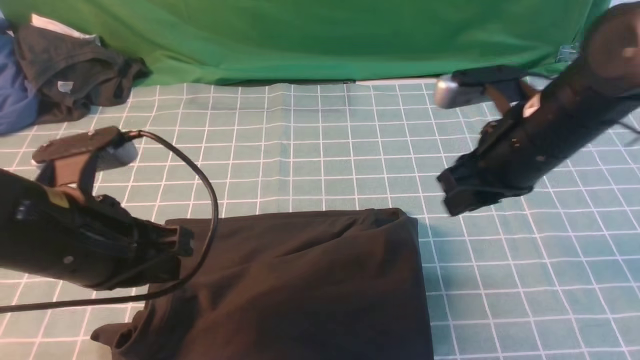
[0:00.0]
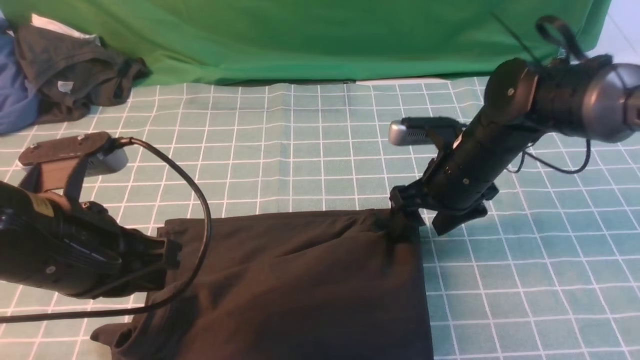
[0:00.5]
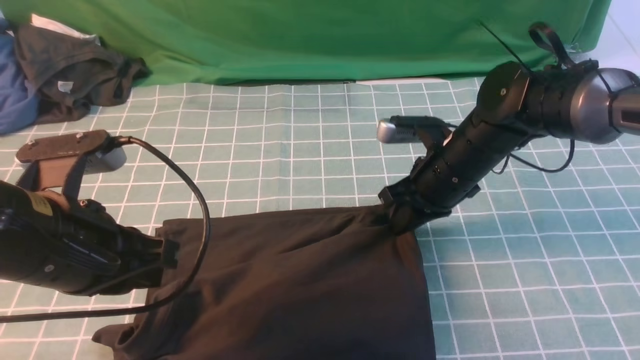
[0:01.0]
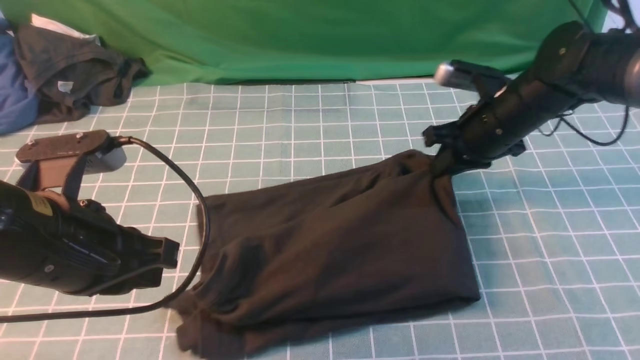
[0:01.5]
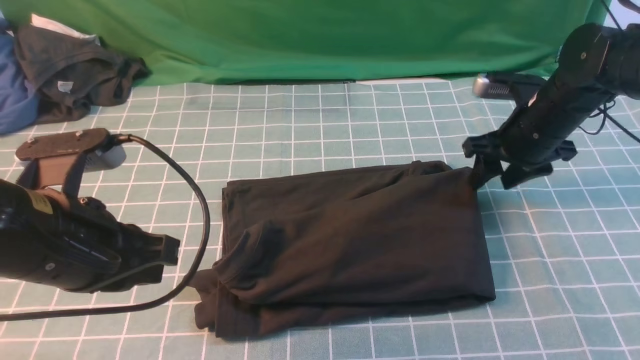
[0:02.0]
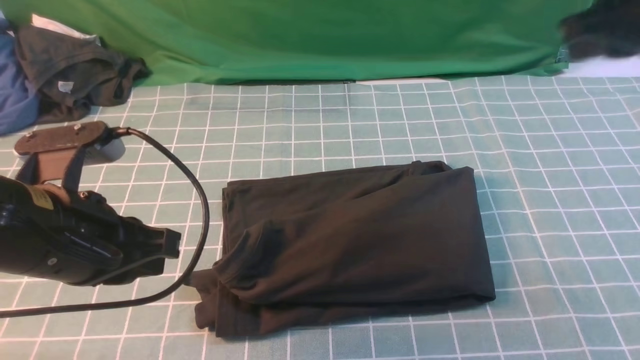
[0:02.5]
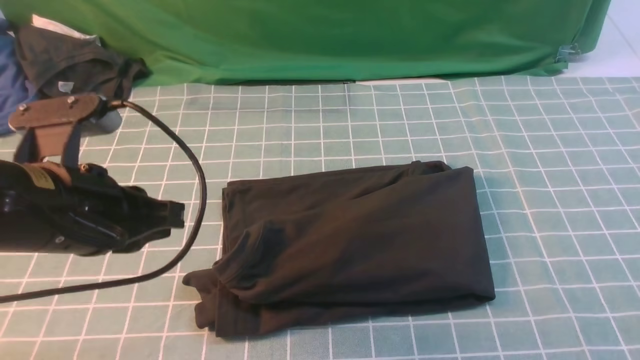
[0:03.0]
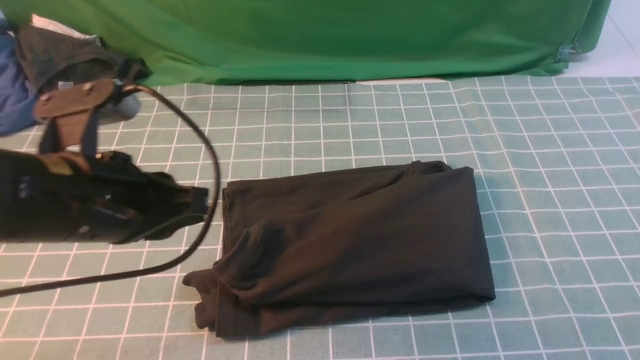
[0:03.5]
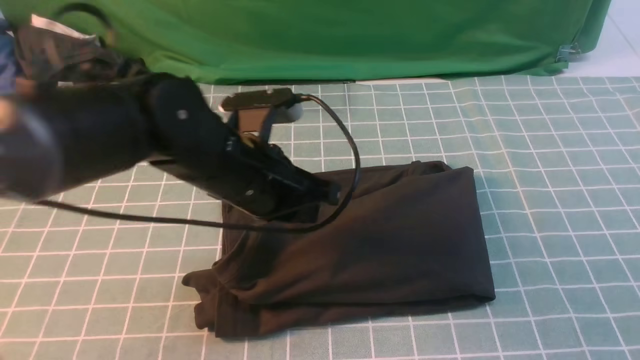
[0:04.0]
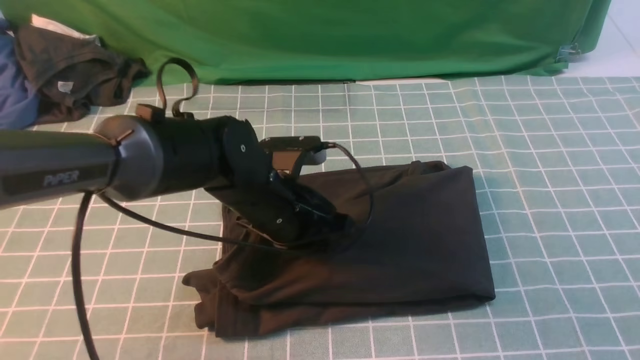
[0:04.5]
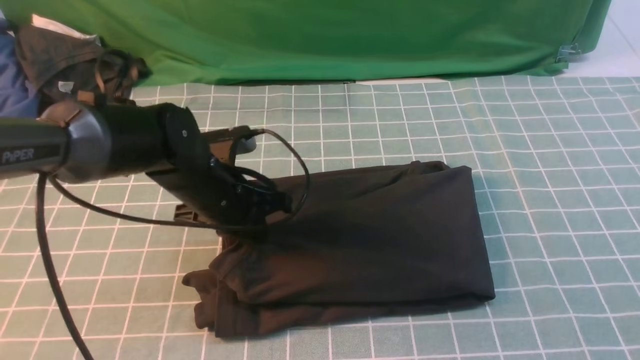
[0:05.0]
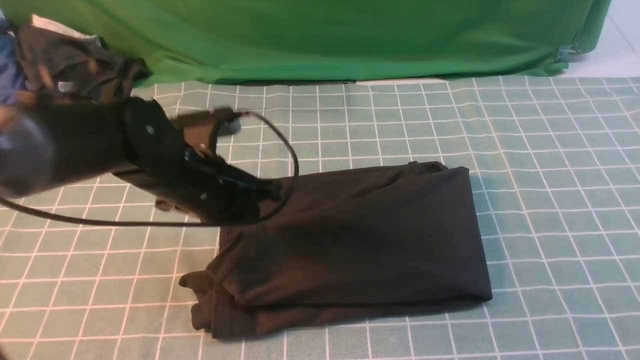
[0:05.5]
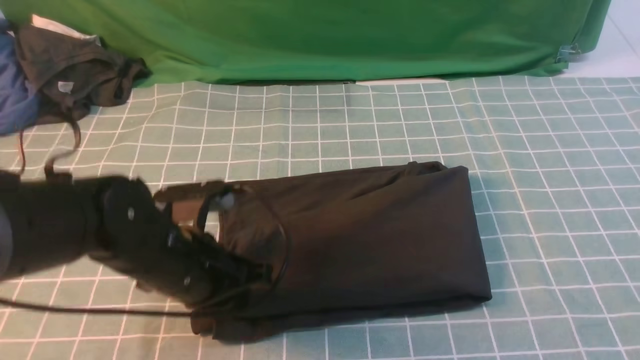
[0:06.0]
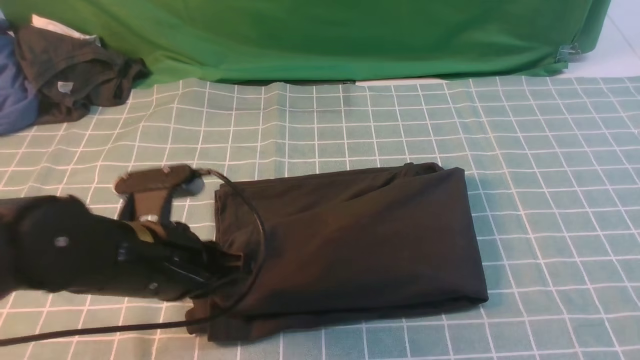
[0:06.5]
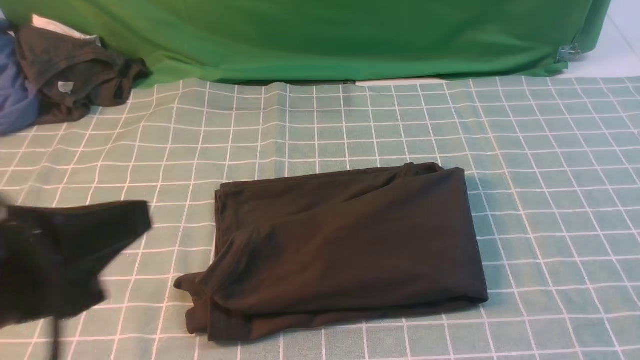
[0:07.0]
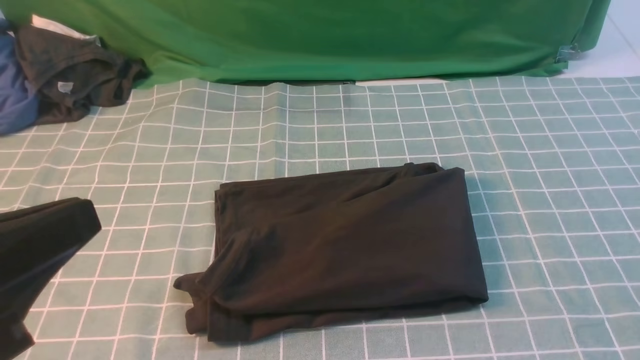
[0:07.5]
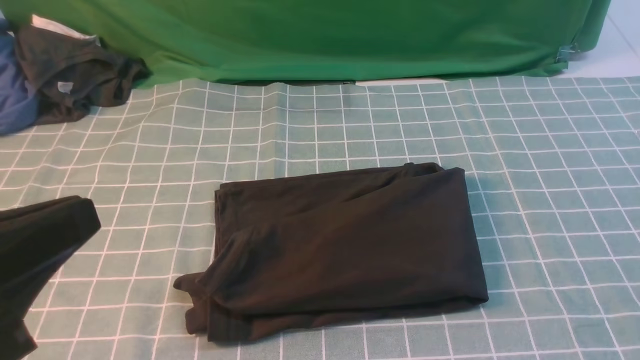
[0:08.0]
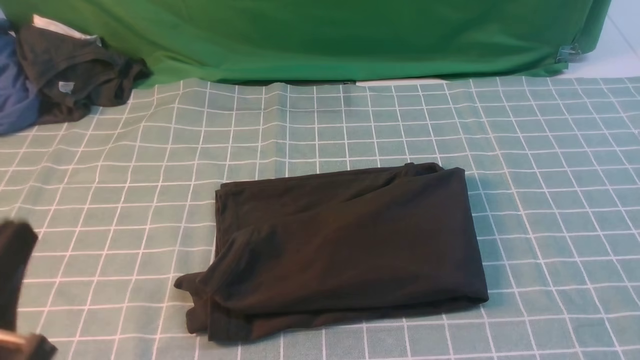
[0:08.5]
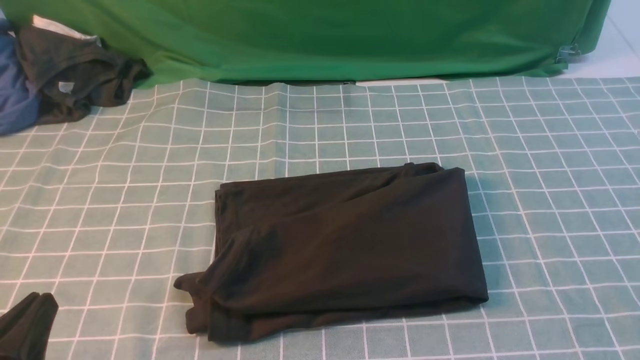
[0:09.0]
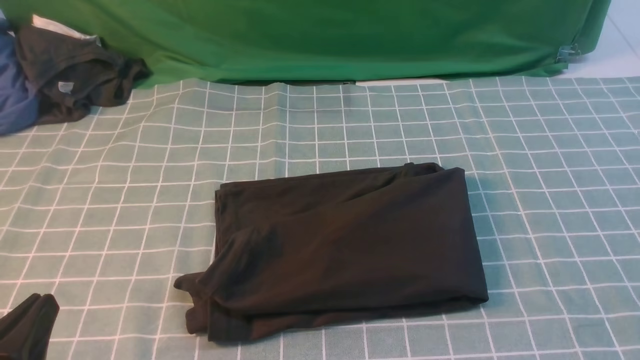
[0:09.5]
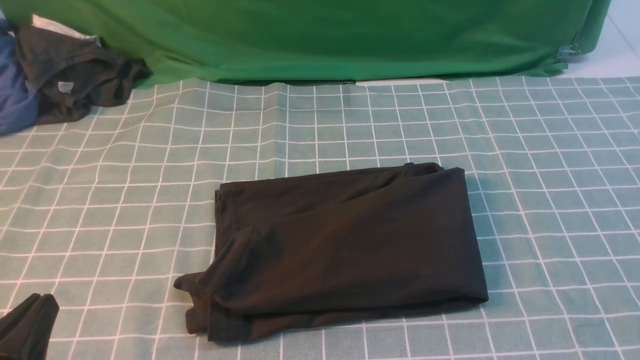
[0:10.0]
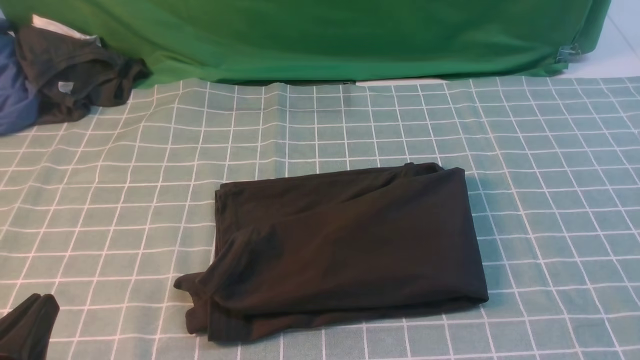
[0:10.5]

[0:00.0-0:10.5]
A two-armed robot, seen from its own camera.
0:00.0 to 0:02.0: The right gripper travels forward, to the right and downward by approximately 15 cm, and closes, then reopens.
0:02.0 to 0:04.0: The right gripper heads backward, covering about 35 cm; the left gripper shifts roughly 15 cm to the right and forward.
0:04.0 to 0:06.5: The left gripper goes approximately 10 cm backward and to the left.
0:06.5 to 0:08.5: The left gripper moves backward and to the left, approximately 15 cm.
0:08.5 to 0:10.5: The left gripper moves downward, some 5 cm.

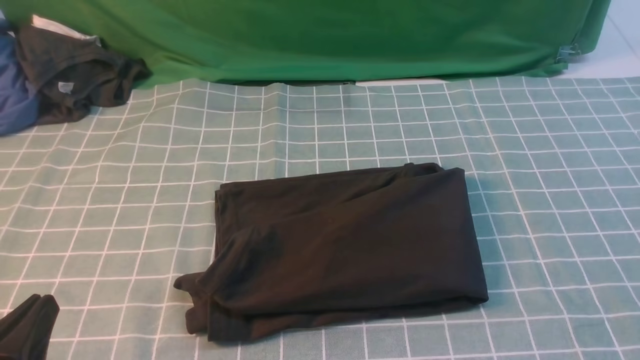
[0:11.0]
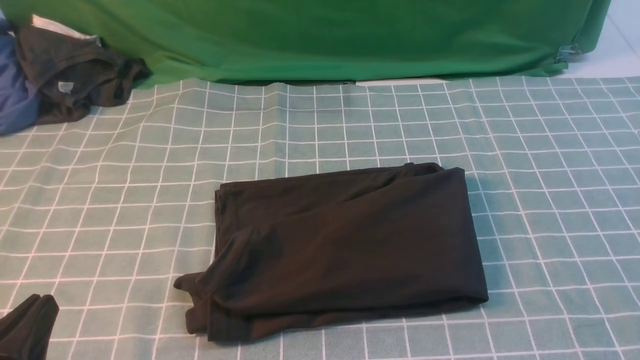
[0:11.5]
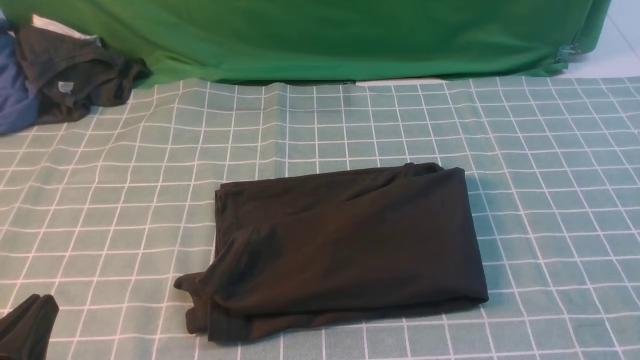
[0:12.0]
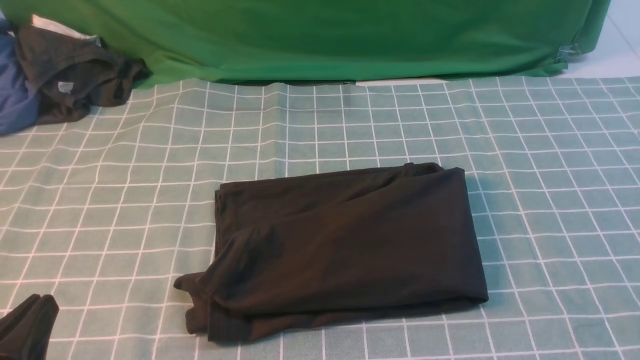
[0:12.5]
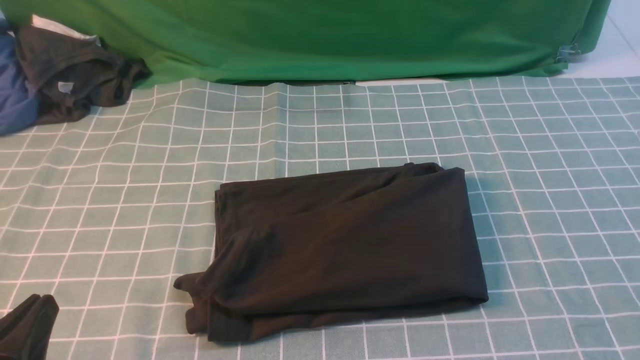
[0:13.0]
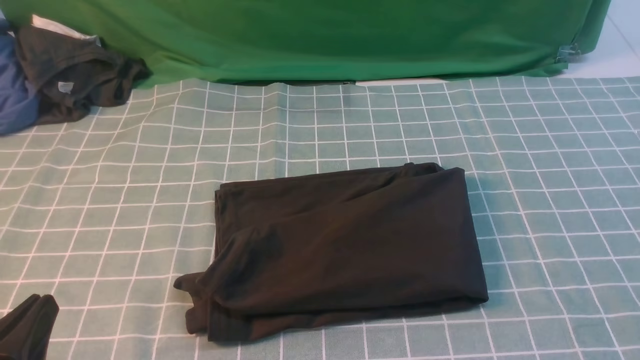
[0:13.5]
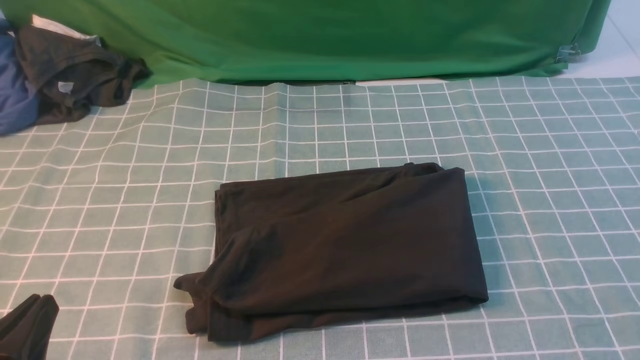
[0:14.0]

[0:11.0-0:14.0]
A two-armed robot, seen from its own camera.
0:11.0 to 0:14.0: The two grippers keep their place.
